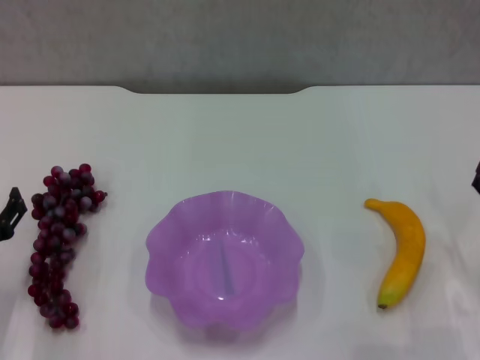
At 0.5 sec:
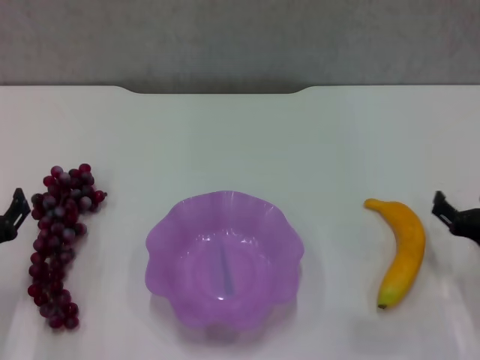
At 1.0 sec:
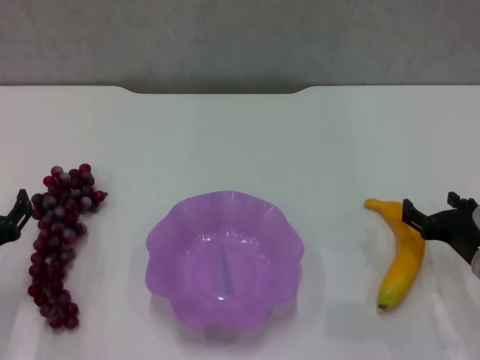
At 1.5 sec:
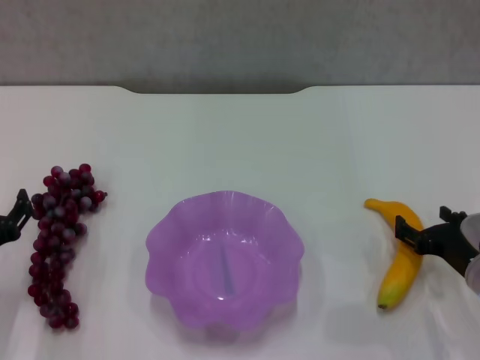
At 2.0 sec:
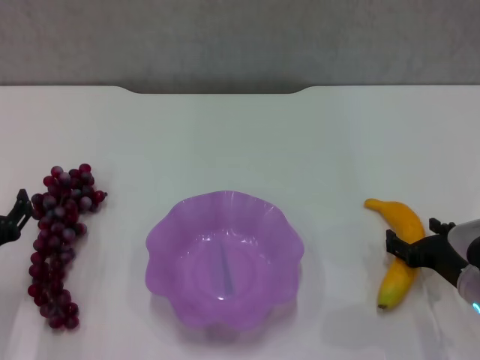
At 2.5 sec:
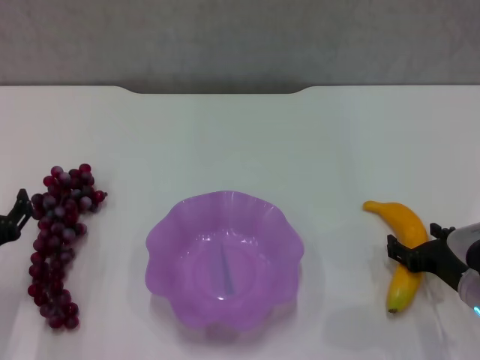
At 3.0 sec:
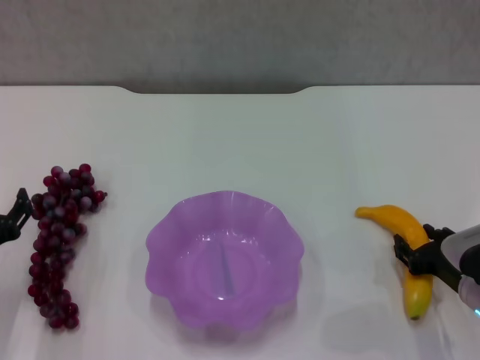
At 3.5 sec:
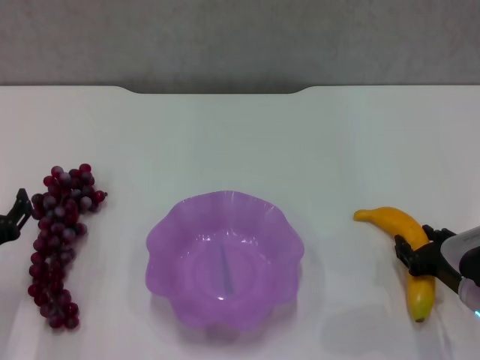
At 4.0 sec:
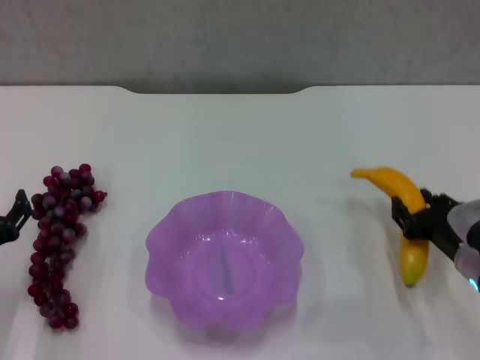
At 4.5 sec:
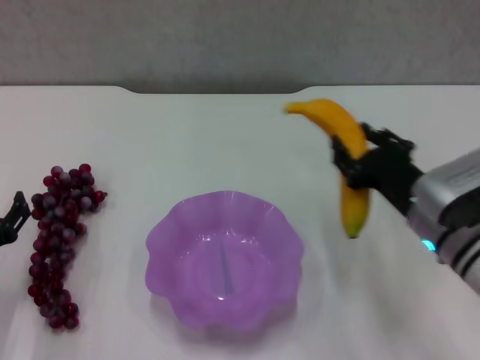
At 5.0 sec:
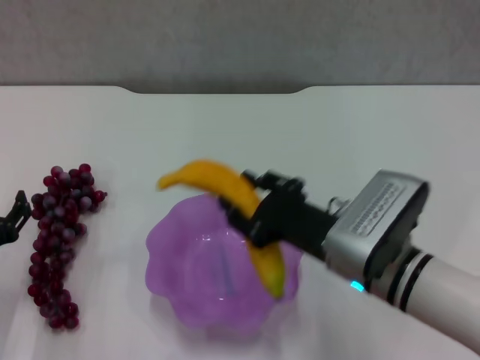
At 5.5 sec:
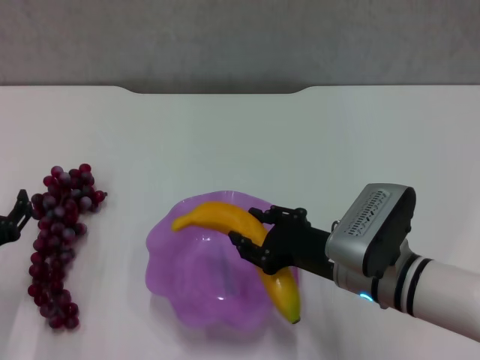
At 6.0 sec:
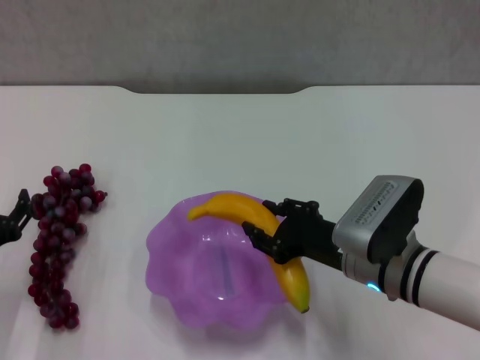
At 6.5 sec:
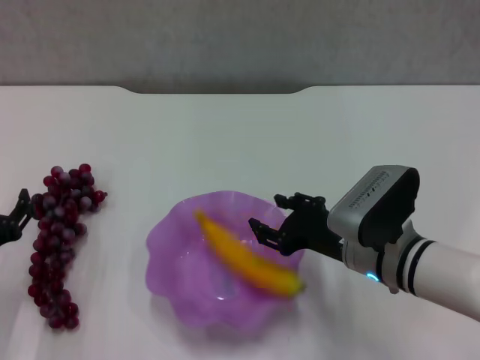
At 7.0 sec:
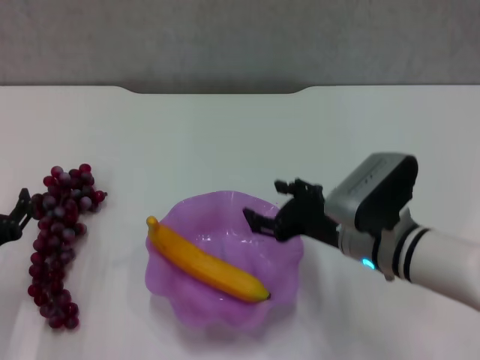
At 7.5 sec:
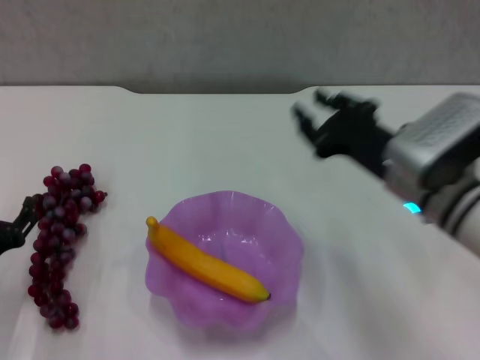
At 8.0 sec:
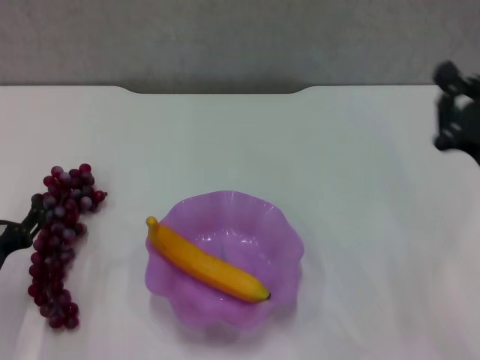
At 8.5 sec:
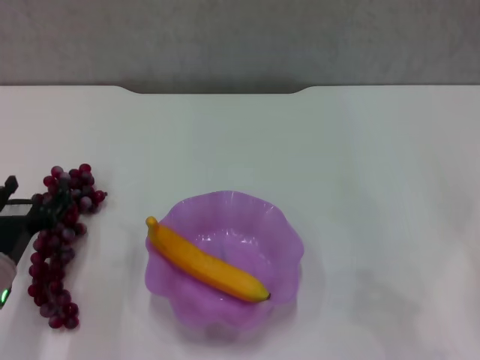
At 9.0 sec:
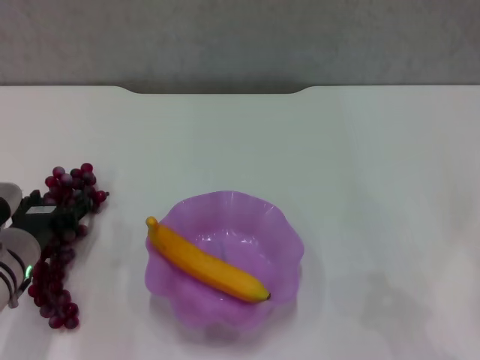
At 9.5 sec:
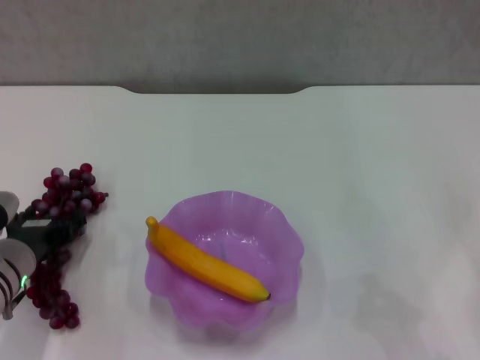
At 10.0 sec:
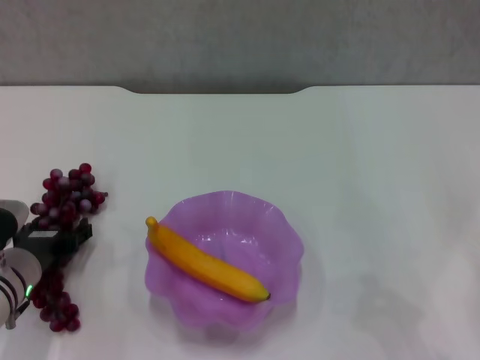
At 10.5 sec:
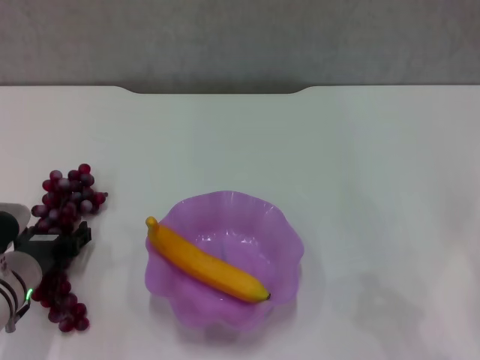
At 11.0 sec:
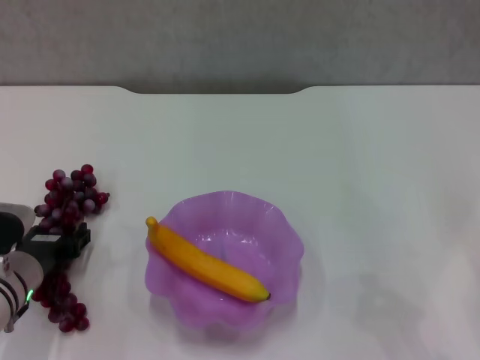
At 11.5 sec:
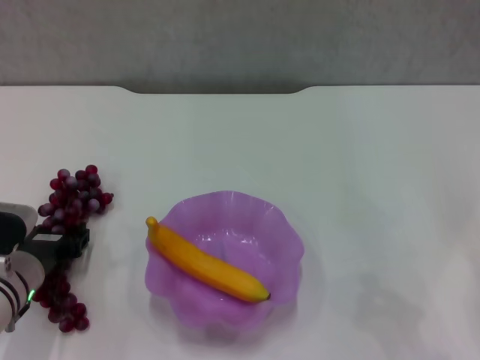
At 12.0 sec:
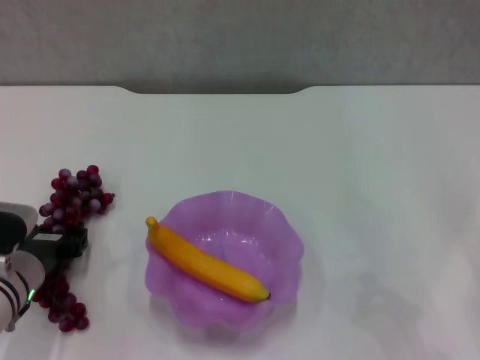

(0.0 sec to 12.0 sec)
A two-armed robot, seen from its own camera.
Step, 0.0 sec - 3.5 sec: Grasp the banana with right gripper.
Step, 4.0 sec - 6.5 sec: Place the banana in the purple plate with right gripper.
0.0 sec - 2.0 sec: The right gripper moves roughly 5 cm.
2.0 sec - 4.0 sec: The right gripper closes up.
4.0 sec - 6.0 sec: The right gripper travels to the left by about 10 cm.
6.0 sec - 8.0 sec: The right gripper heads to the right and upward, covering roughly 15 cm, and closes its fingers.
8.0 sec - 10.0 sec: The left gripper ends up roughly 5 cm from where it was. Meanwhile the right gripper is displaced to the right, downward and backward by some 10 cm.
10.0 sec - 12.0 sec: The left gripper closes.

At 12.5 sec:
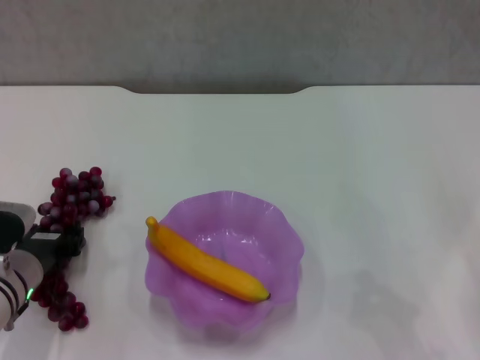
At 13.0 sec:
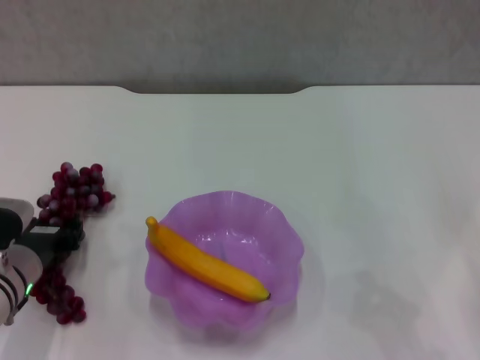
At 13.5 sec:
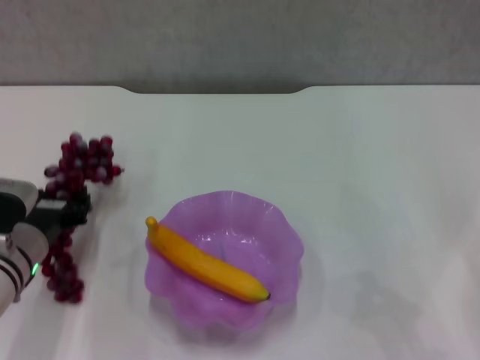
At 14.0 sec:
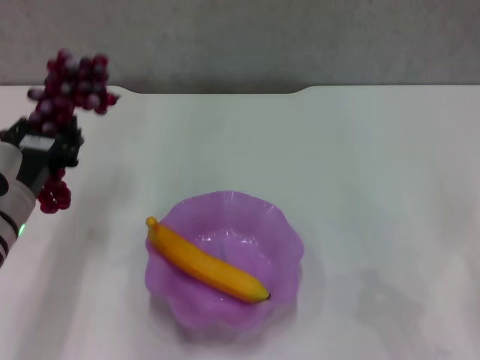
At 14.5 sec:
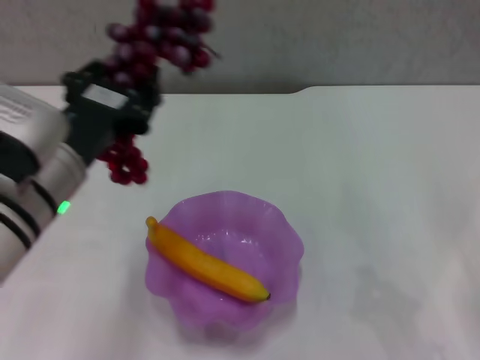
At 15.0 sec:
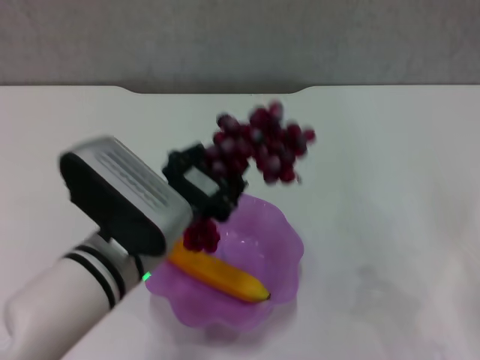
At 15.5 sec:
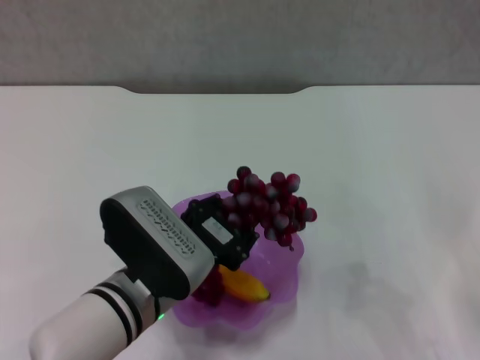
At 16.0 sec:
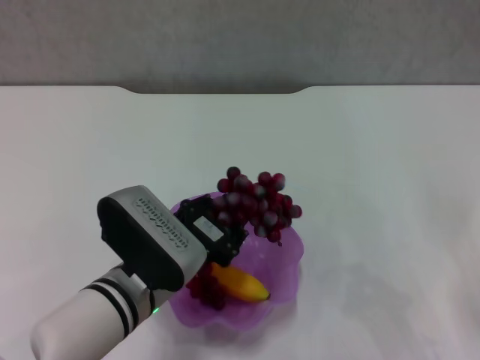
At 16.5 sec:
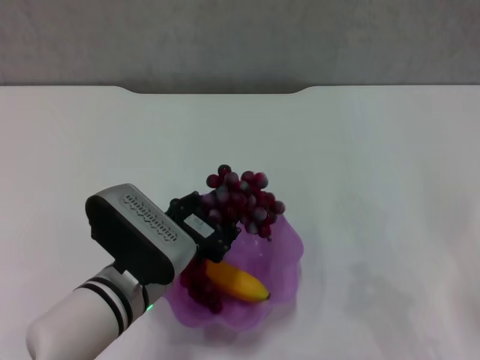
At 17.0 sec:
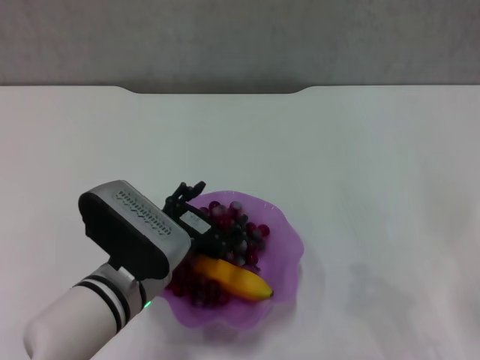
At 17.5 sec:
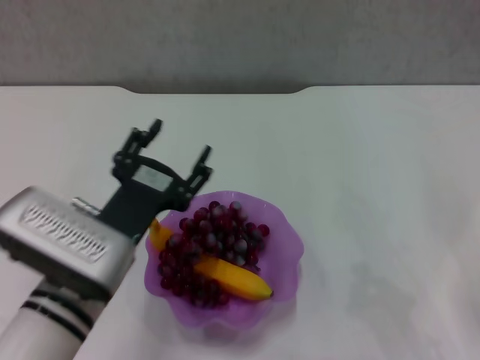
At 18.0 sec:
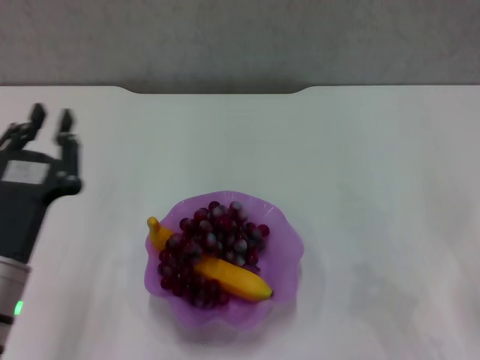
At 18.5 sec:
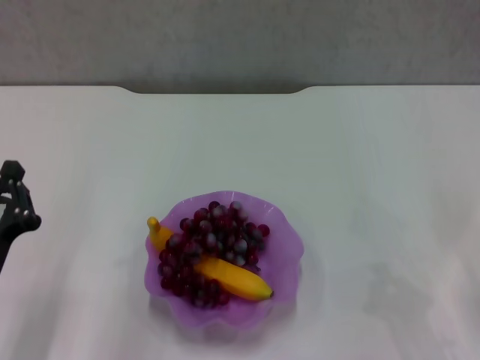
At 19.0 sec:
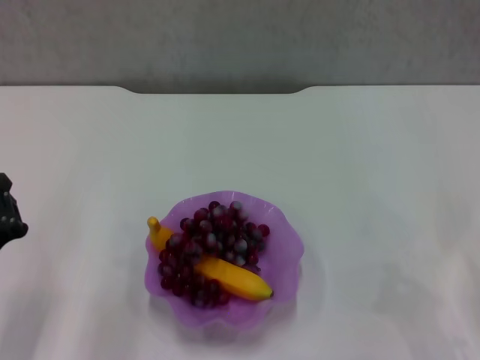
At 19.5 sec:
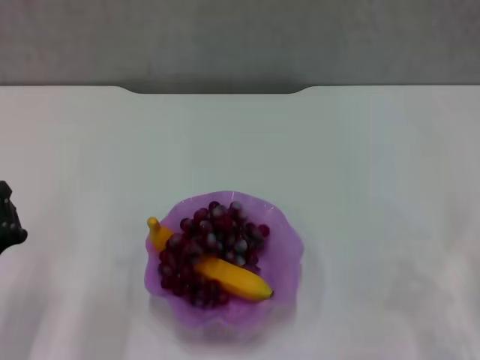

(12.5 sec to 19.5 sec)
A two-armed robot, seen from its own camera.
Step, 13.0 sec - 16.5 sec: Place the grape in the purple plate with left gripper.
12.5 sec - 14.5 sec: The left gripper is displaced upward and to the right by roughly 20 cm.
14.5 sec - 16.0 sec: The left gripper travels downward and to the right by approximately 10 cm.
16.0 sec - 17.5 sec: The left gripper opens up.
17.5 sec - 19.5 sec: The left gripper moves to the left and downward, roughly 15 cm, and closes.
